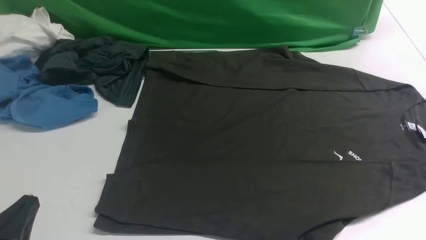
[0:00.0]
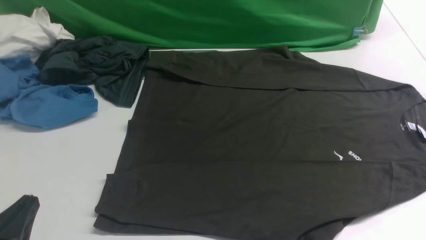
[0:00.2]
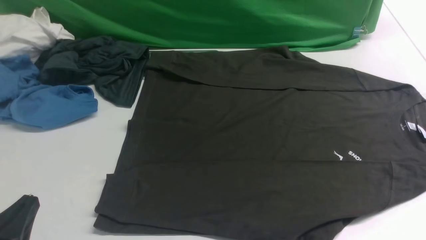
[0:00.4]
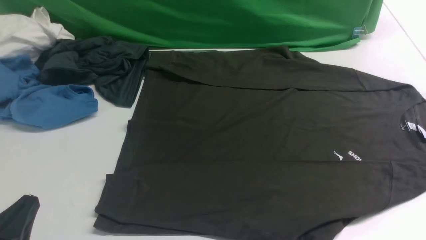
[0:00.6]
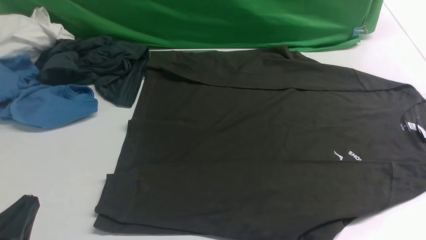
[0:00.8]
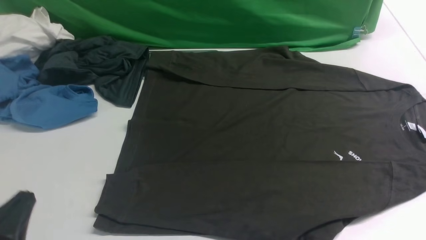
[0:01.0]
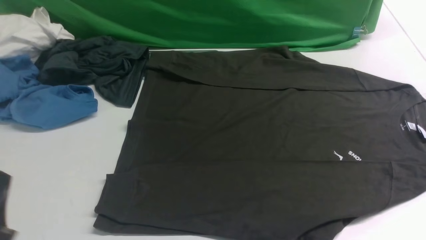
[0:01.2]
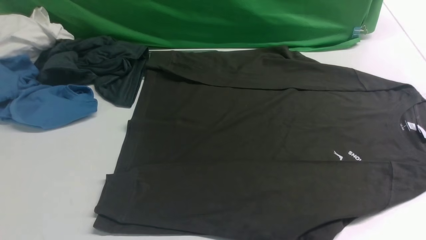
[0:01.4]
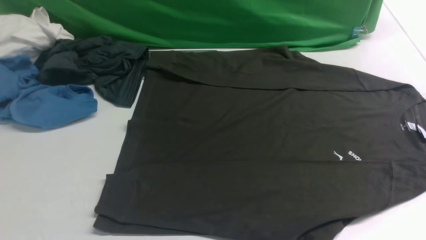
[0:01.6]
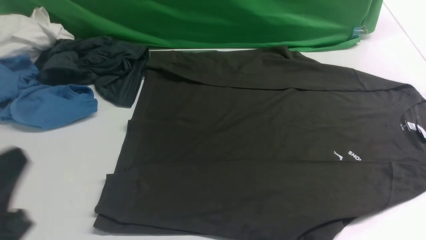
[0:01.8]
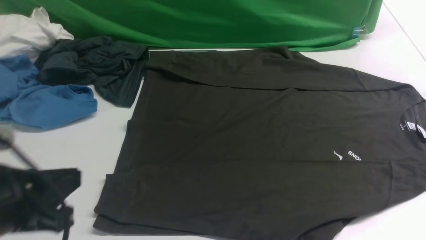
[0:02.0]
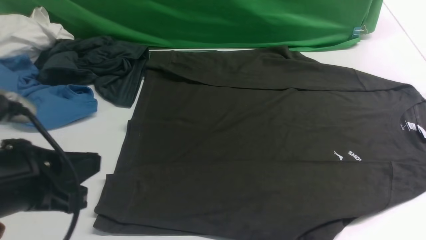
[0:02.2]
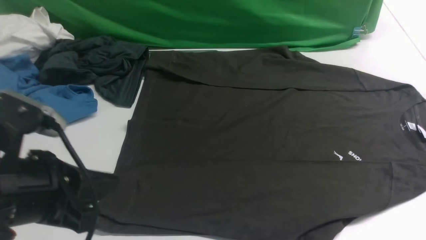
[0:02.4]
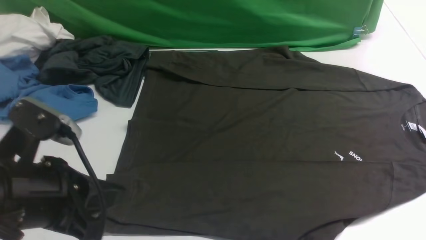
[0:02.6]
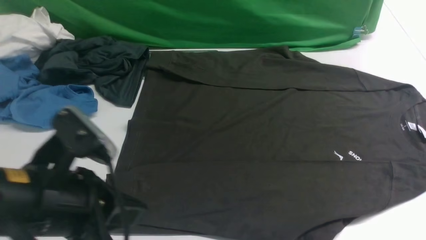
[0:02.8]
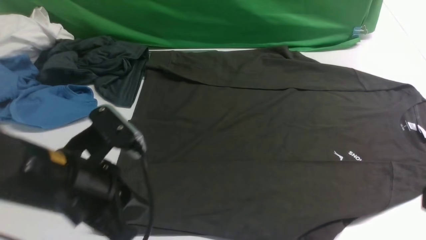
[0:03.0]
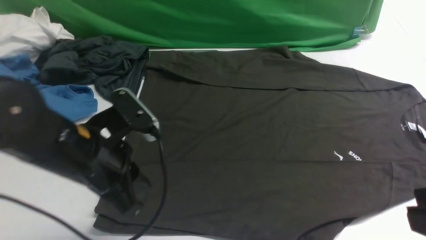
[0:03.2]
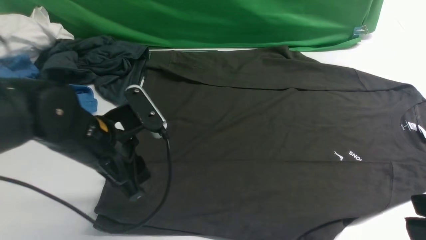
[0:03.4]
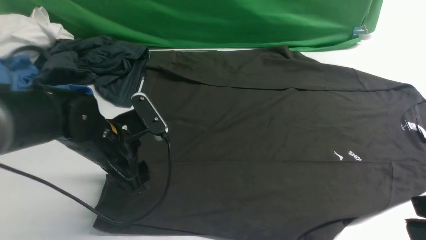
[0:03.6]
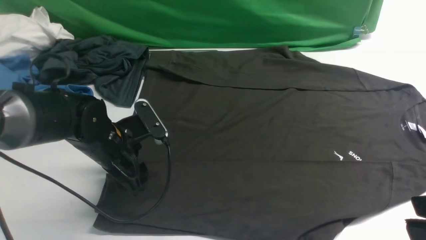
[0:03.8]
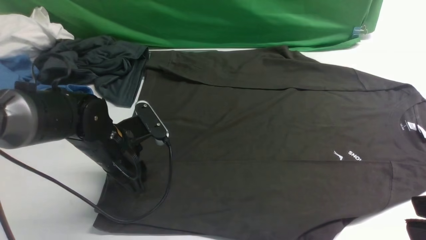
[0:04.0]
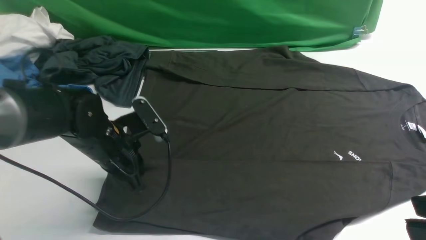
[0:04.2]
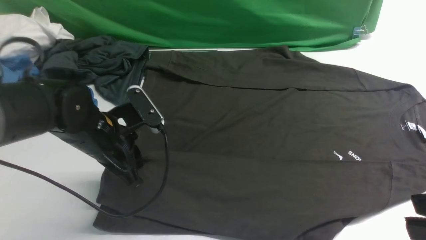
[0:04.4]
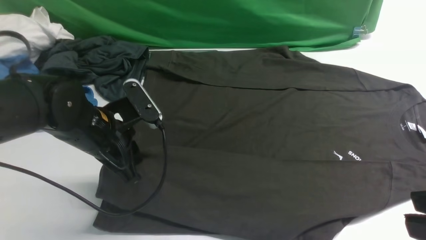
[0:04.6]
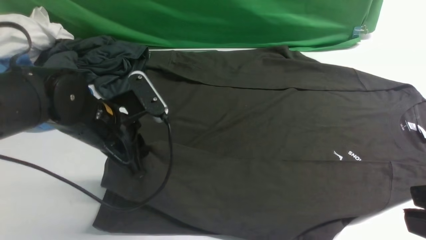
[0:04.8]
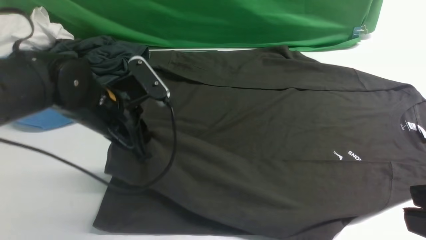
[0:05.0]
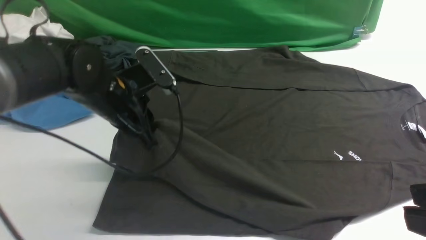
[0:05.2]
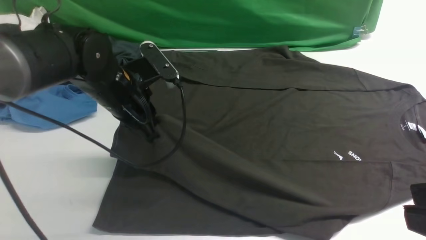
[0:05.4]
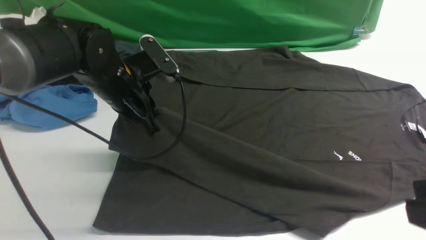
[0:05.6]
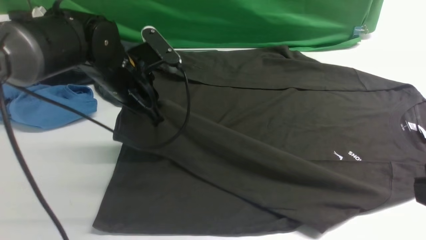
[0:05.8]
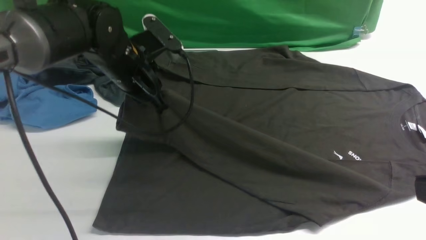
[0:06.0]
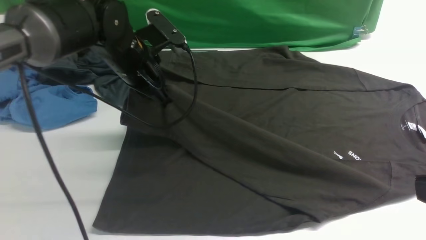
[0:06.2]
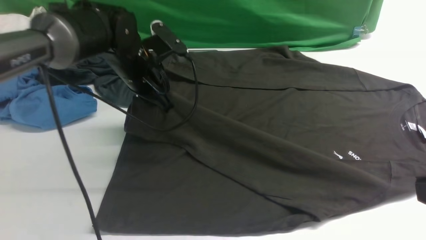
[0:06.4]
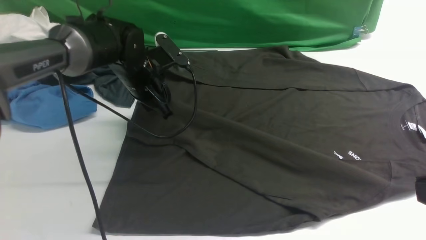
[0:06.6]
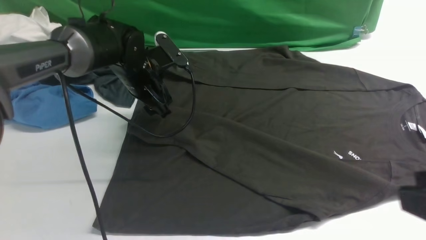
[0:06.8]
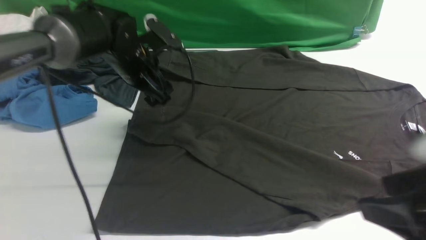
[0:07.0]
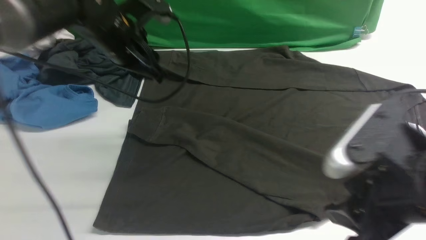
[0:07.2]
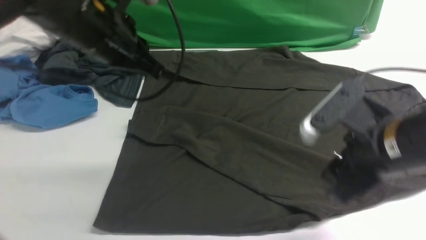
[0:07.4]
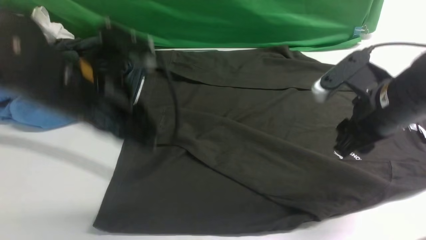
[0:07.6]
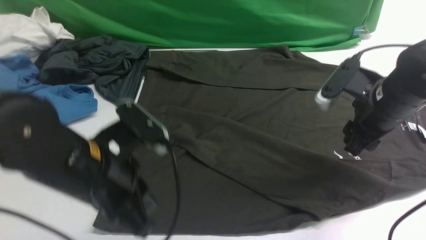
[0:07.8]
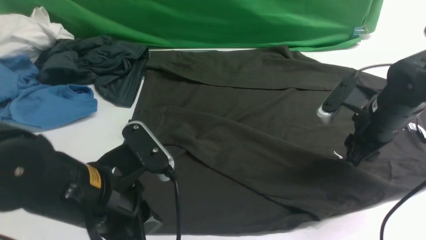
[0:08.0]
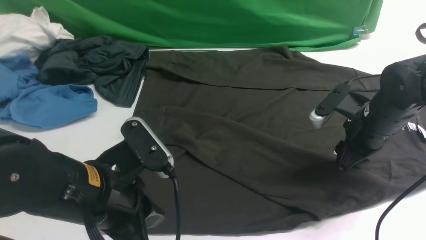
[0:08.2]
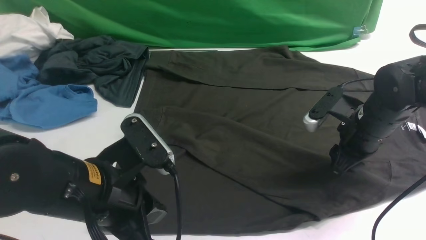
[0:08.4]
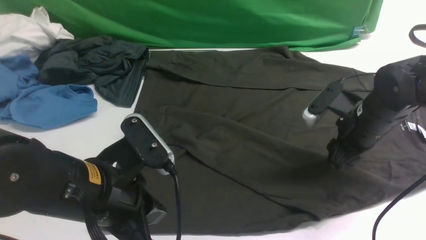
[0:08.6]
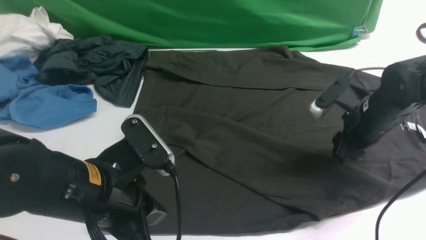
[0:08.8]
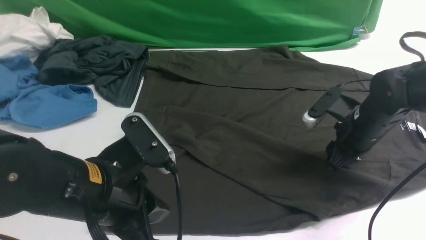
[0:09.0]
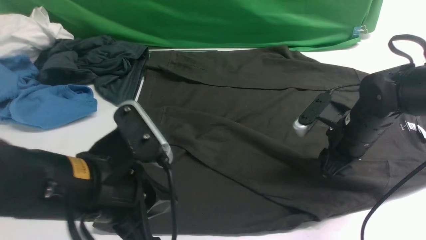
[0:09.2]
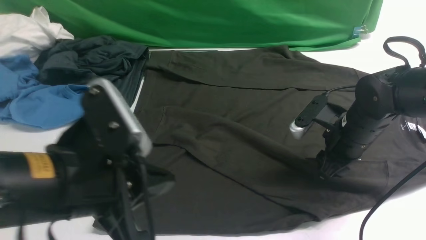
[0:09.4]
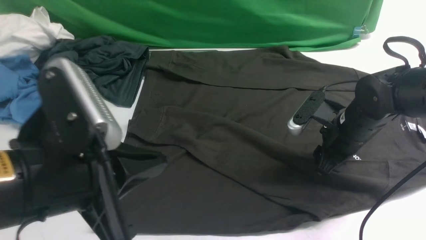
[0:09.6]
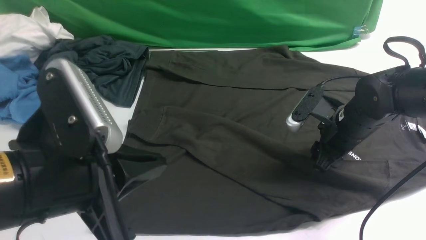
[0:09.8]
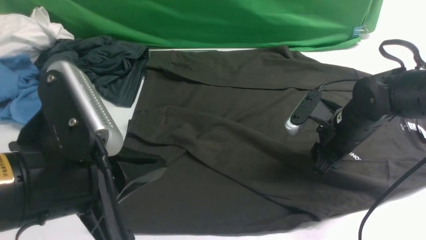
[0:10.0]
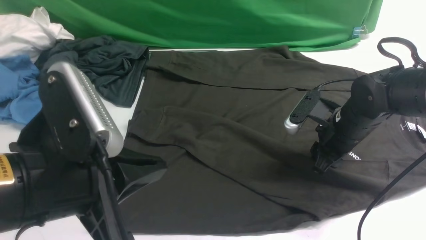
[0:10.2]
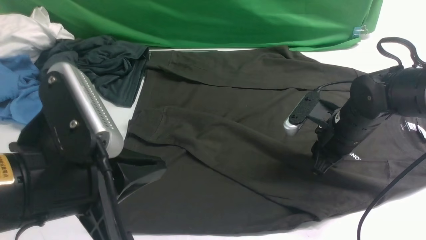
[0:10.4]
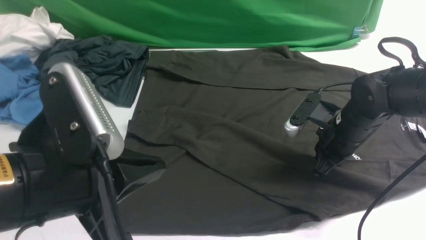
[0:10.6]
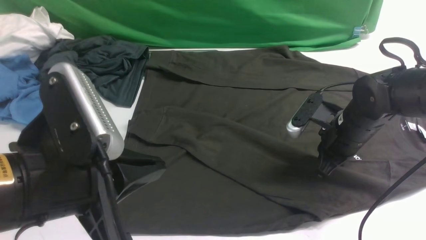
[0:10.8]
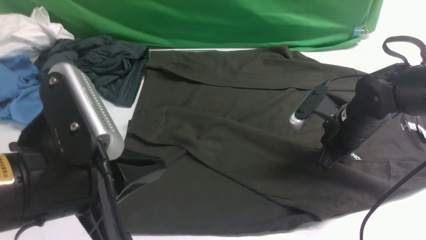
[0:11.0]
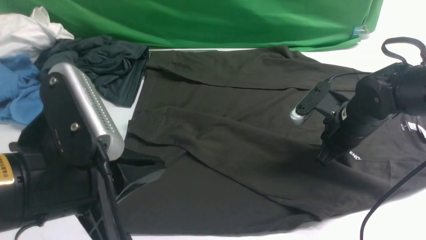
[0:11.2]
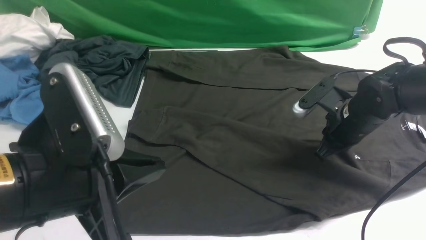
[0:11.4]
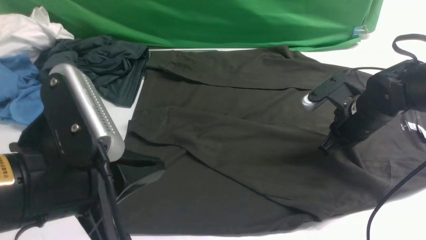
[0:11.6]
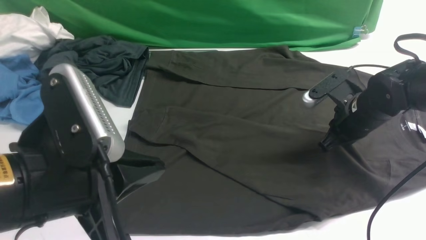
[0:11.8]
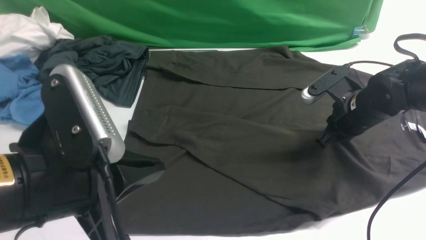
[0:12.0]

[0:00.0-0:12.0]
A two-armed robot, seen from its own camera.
Step, 0:00.0 to 0:04.6: use the left arm to clamp the cuff closest to it.
Step, 0:04.8 to 0:06.8: use the left arm to drag and place the cuff at the centered position on the left edge of the fabric.
0:00.0 to 0:01.6: The left gripper shifts roughly 10 cm upward.
0:01.6 to 0:03.0: The left gripper travels forward and to the right by roughly 15 cm.
0:03.0 to 0:04.4: The left gripper goes roughly 15 cm forward and downward, and opens, then closes once more.
0:04.4 to 0:06.0: The left gripper goes about 10 cm forward and upward.
0:06.0 to 0:07.6: The right gripper moves forward and downward, approximately 25 cm, and opens; the left gripper moves backward, approximately 15 cm, and opens, then closes again.
0:07.6 to 0:09.0: The left gripper heads backward, covering some 10 cm. The right gripper travels downward and forward by approximately 10 cm.
0:09.0 to 0:10.4: The right gripper closes. Meanwhile the left gripper is displaced upward by approximately 5 cm.

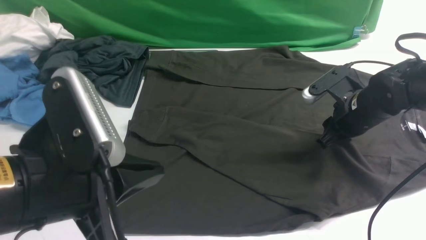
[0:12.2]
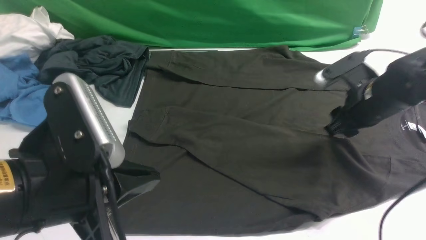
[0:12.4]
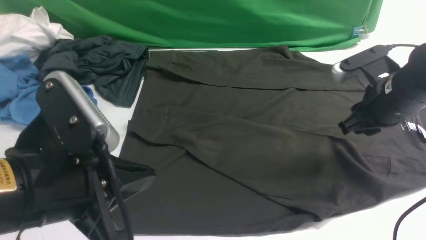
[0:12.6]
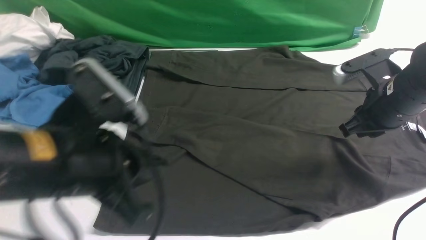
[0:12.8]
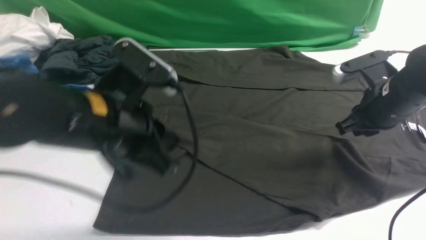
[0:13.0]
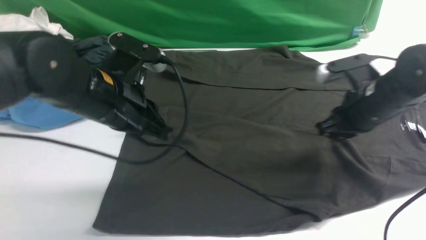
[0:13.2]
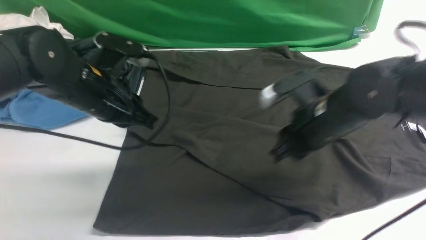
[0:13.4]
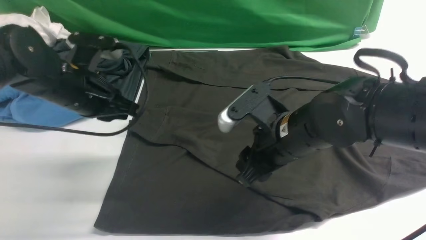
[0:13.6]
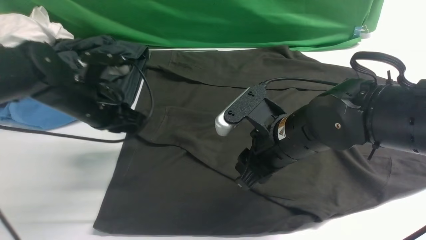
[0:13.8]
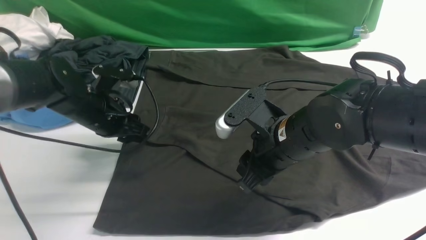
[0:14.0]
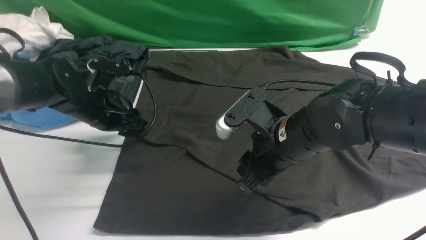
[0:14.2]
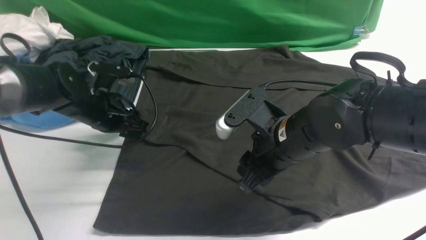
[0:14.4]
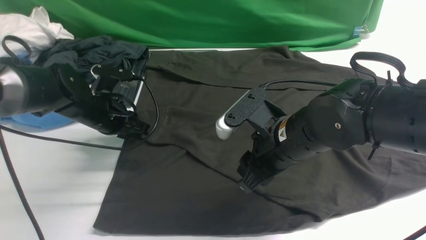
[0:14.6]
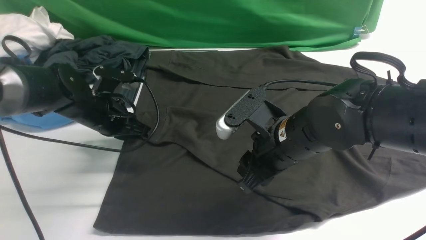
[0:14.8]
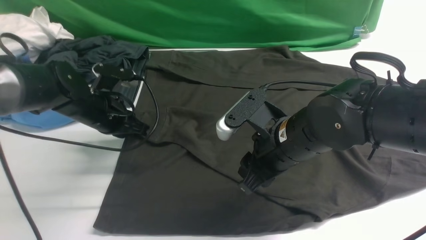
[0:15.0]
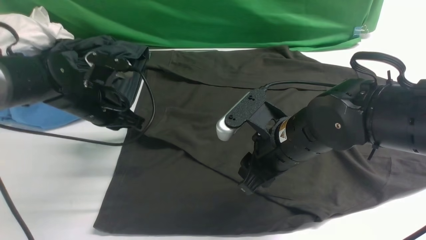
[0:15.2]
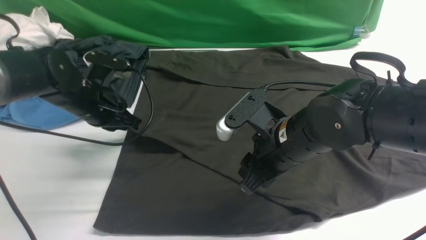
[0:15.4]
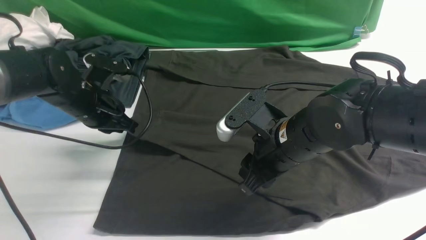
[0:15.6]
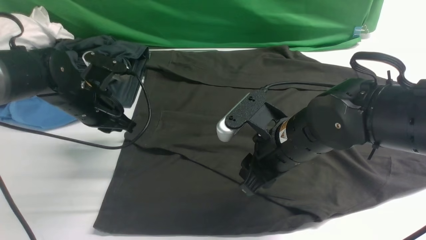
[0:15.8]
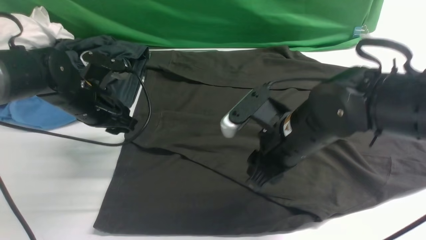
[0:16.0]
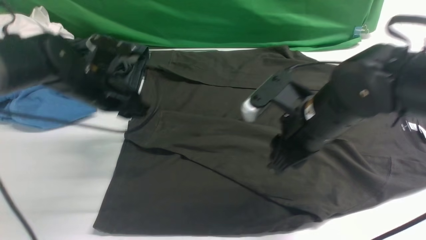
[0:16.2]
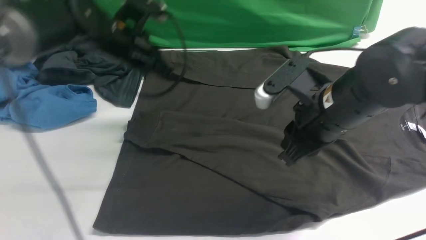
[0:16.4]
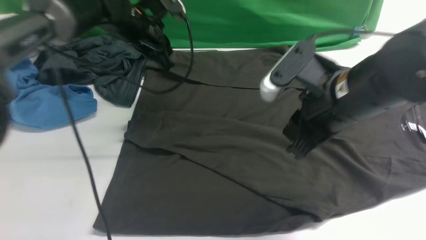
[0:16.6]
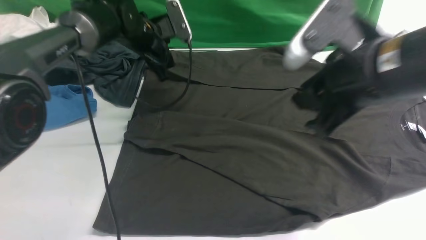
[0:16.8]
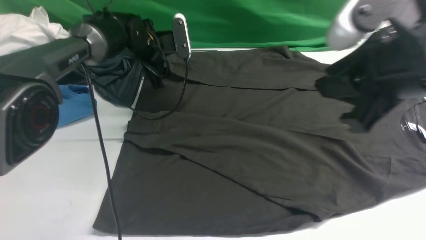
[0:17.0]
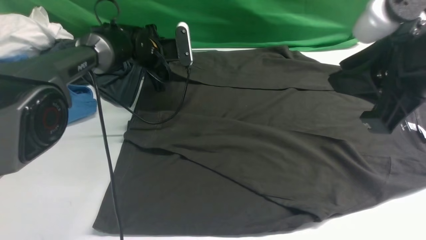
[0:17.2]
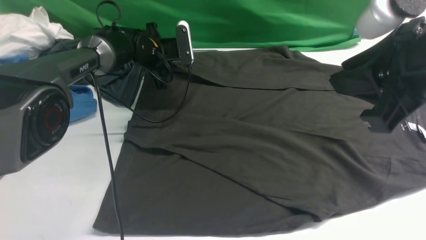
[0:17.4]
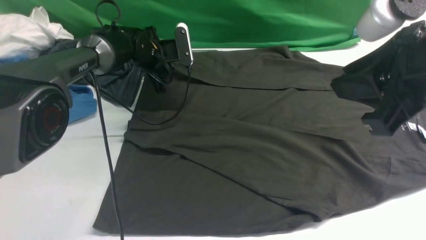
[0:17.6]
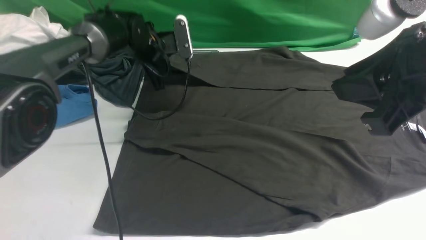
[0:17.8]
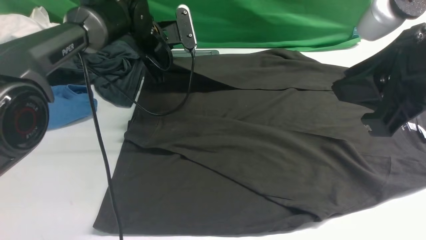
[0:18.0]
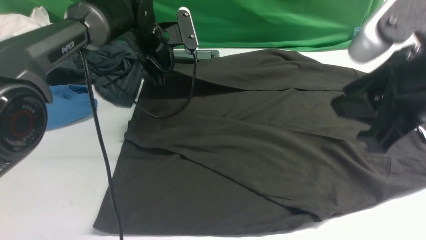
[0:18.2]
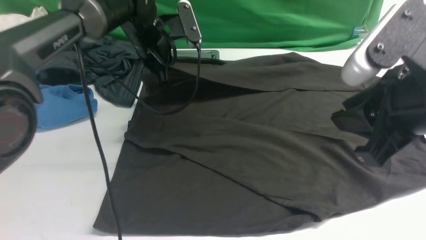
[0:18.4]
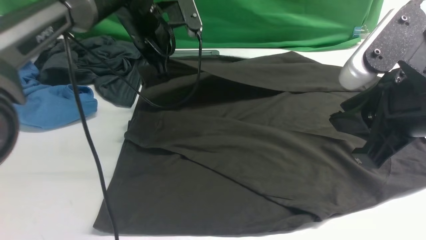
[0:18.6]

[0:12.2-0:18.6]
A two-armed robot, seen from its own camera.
Step, 0:12.2 to 0:17.6: use the left arm to clamp the cuff farthest from it.
0:12.2 to 0:13.8: The right gripper travels to the left and backward by some 15 cm; the left gripper heads forward and downward, covering some 25 cm.
0:13.8 to 0:15.4: The left gripper opens, then closes again.
0:15.4 to 0:17.0: The left gripper shifts roughly 15 cm forward, and opens up. The right gripper travels upward and to the right by some 20 cm.
0:17.0 to 0:18.6: The left gripper shifts roughly 10 cm upward and backward, and closes its fingers.
